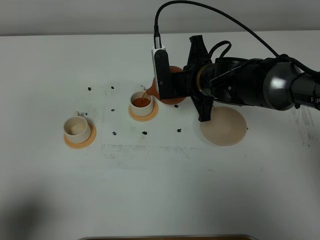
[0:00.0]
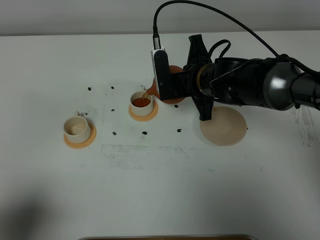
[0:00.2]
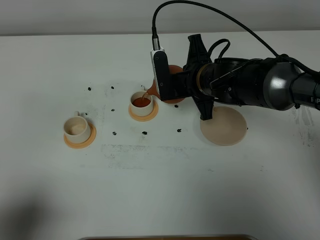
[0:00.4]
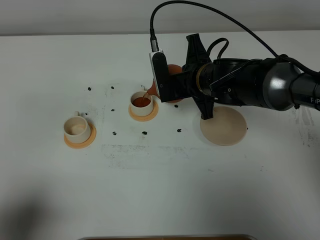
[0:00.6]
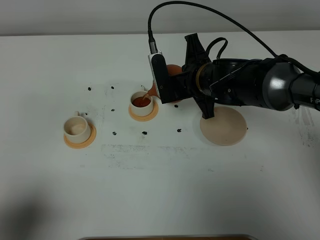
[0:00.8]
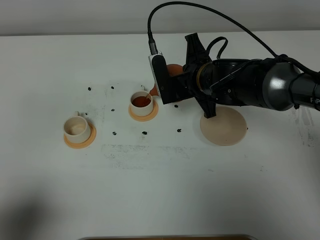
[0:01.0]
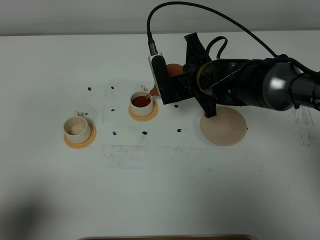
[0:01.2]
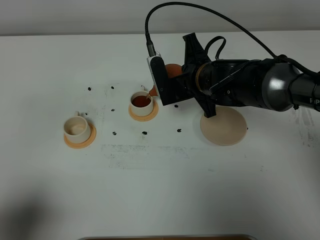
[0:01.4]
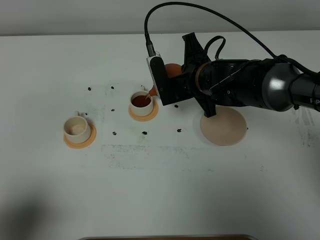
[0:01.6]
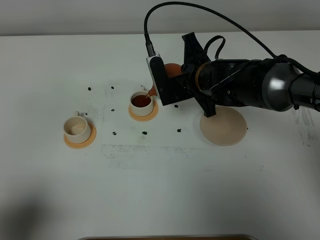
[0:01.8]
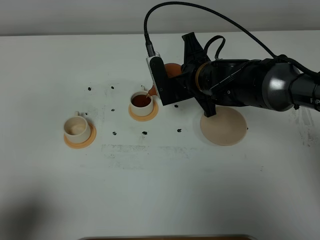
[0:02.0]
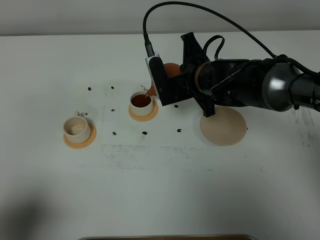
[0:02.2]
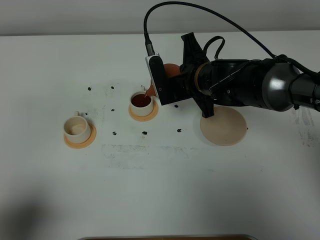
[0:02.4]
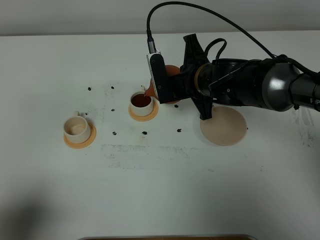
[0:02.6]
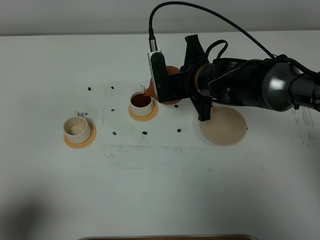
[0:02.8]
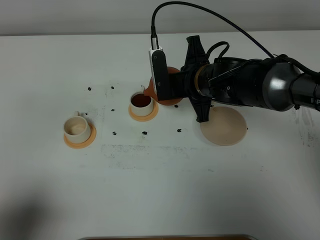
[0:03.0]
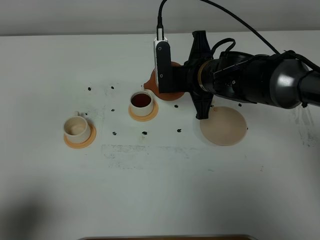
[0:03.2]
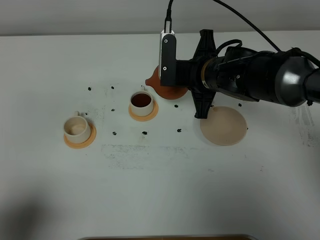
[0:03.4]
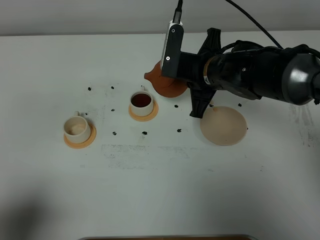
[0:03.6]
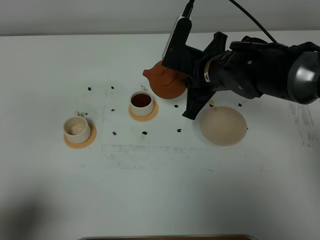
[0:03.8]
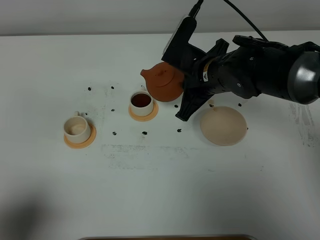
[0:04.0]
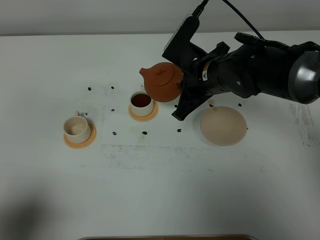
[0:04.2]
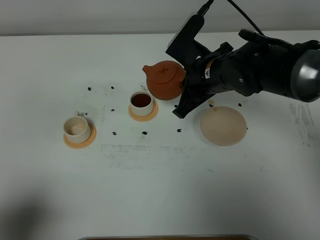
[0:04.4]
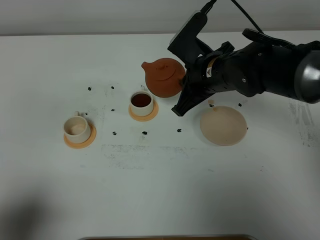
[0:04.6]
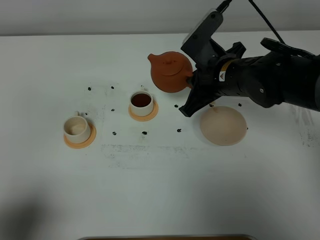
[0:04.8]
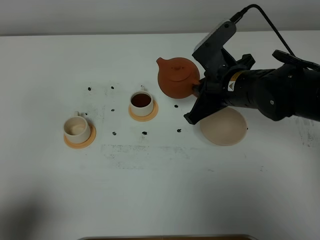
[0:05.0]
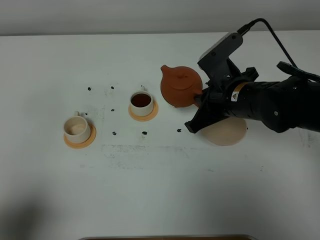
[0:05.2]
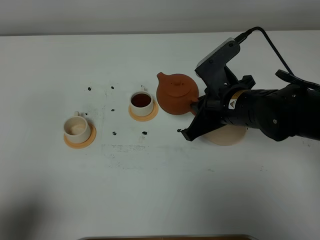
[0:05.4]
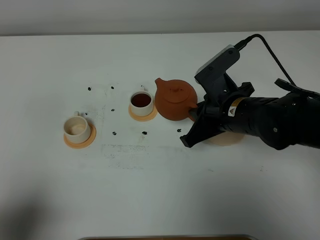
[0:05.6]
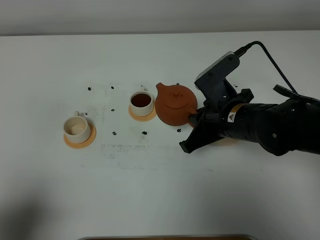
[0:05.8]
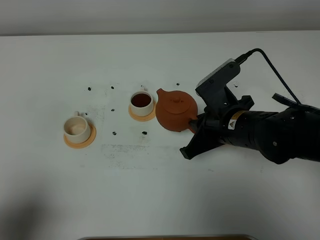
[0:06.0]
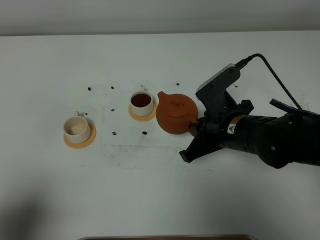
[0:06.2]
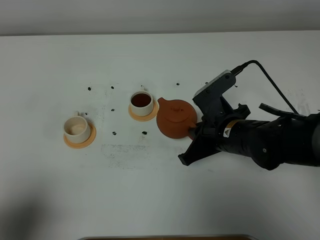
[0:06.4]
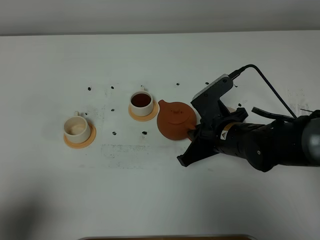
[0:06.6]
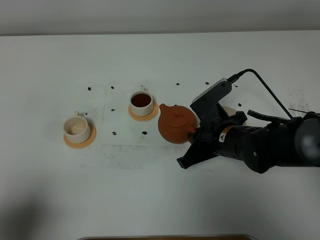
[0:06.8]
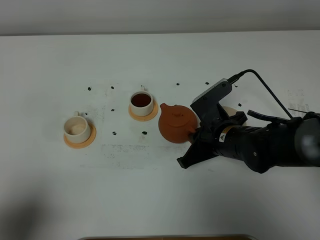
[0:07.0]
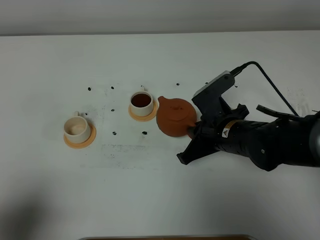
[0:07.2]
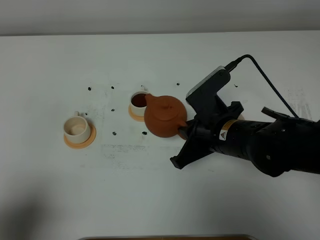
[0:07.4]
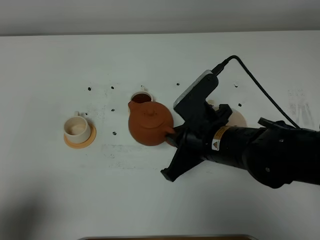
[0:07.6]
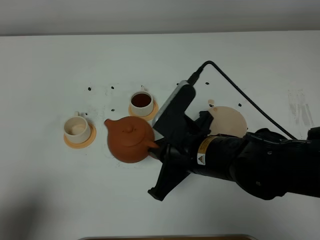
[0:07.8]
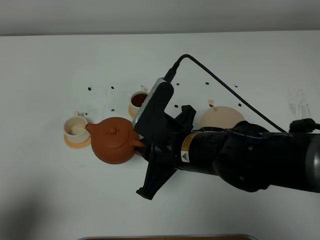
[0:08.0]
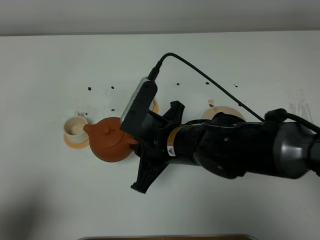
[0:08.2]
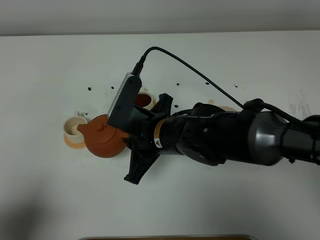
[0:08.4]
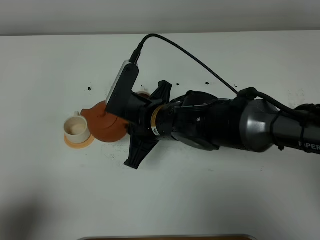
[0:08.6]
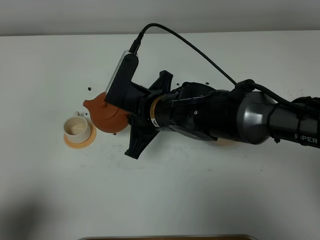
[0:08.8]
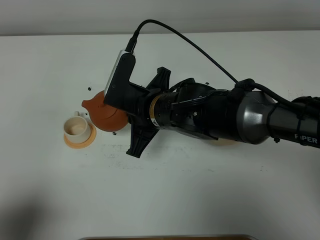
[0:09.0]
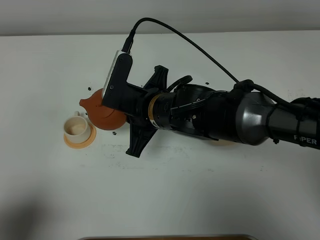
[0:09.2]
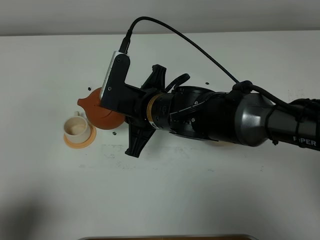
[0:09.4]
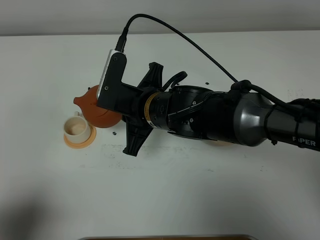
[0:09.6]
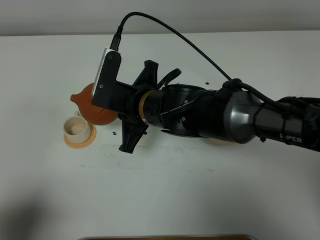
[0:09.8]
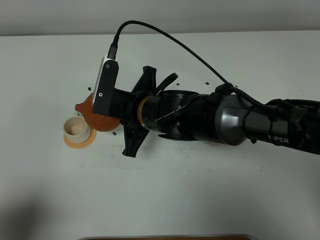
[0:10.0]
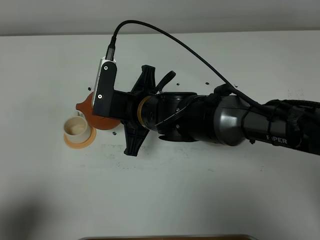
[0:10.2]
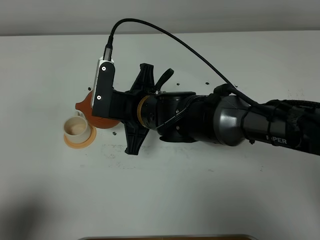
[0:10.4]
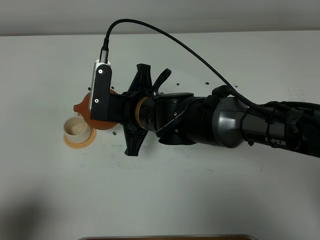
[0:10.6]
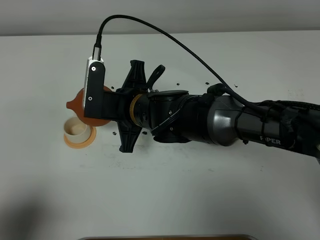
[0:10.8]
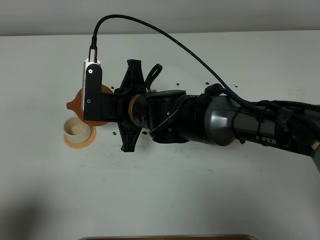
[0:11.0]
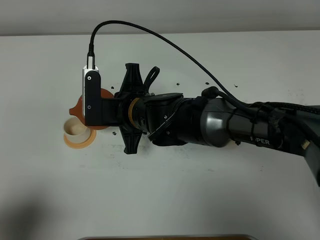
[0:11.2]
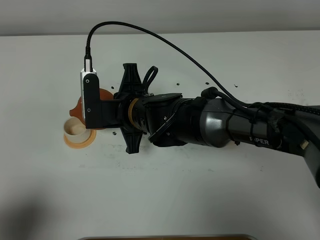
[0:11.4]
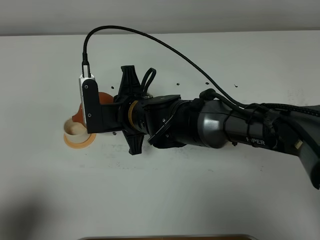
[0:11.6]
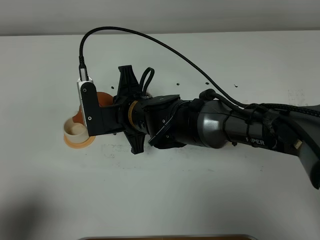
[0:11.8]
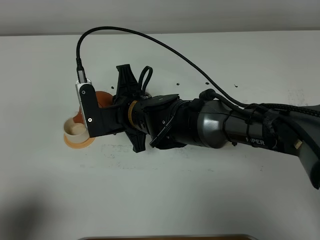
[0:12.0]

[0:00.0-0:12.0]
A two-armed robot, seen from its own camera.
Task of the whole recording: grasp the brown teapot and pour the tea into the two white teacups one by one, put the brown teapot back in its original place.
0:00.0 to 0:03.0: There are only small adjustments of the grippers.
0:04.4 to 0:06.0: The right gripper heads backward, covering approximately 10 cm.
0:06.0 to 0:07.6: The right gripper changes place by roughly 5 cm.
0:07.6 to 0:09.0: The right gripper heads to the left and forward, covering about 10 cm.
0:09.0 to 0:10.4: The grippers stay close to where they were, moving slightly.

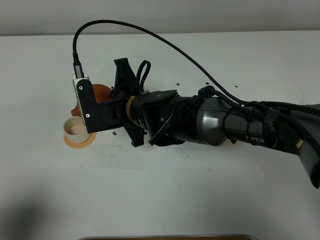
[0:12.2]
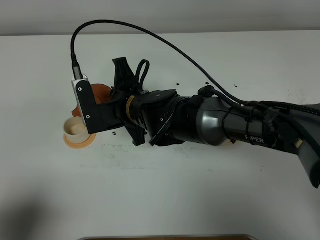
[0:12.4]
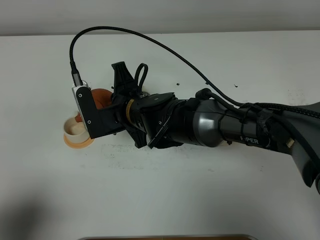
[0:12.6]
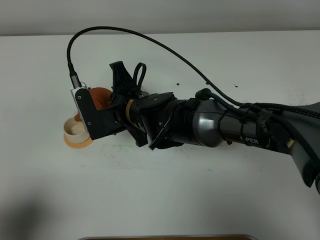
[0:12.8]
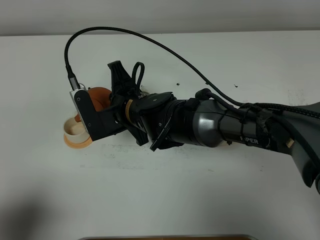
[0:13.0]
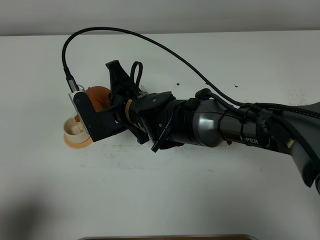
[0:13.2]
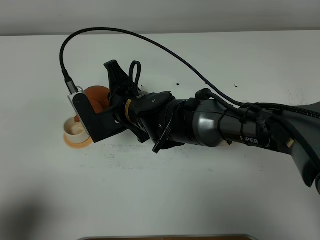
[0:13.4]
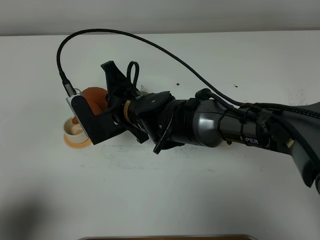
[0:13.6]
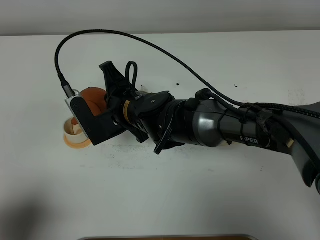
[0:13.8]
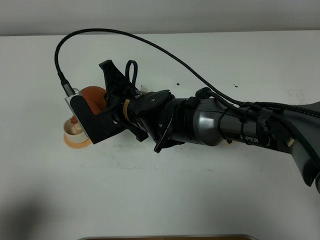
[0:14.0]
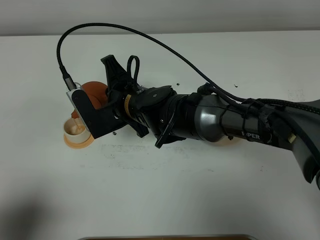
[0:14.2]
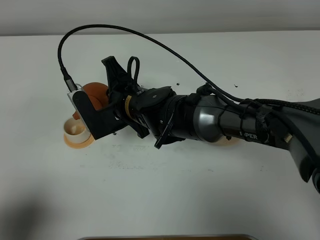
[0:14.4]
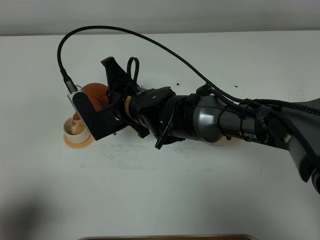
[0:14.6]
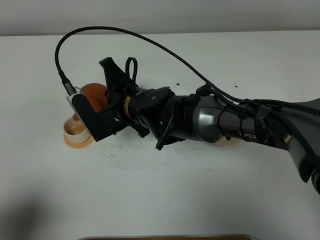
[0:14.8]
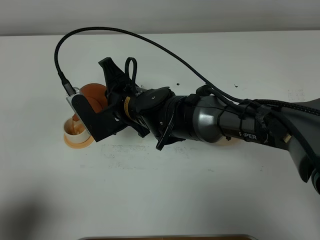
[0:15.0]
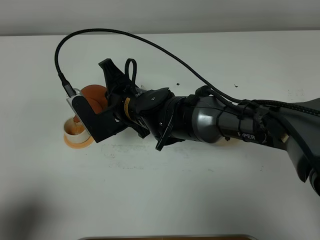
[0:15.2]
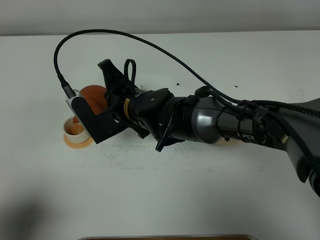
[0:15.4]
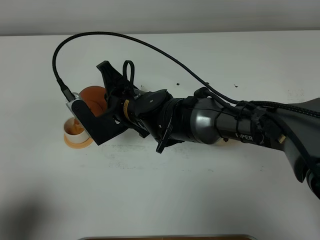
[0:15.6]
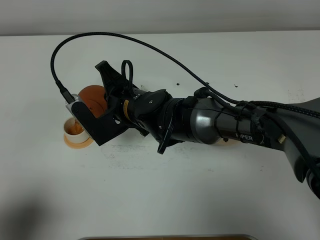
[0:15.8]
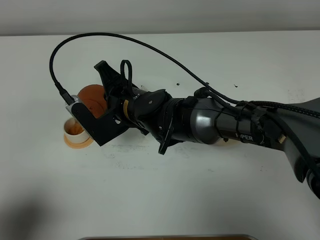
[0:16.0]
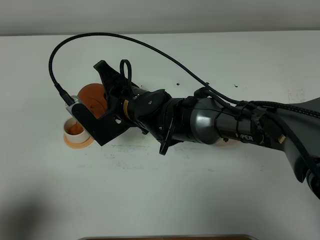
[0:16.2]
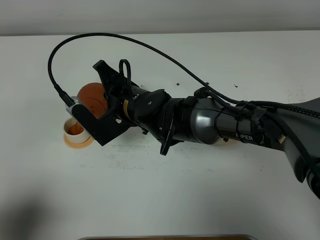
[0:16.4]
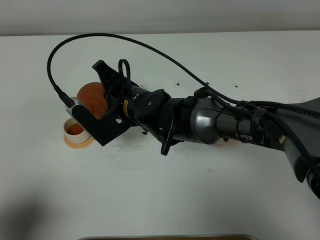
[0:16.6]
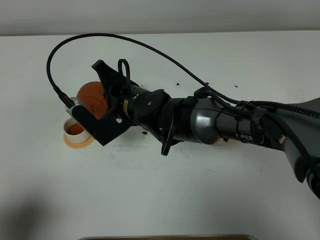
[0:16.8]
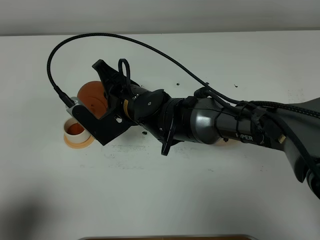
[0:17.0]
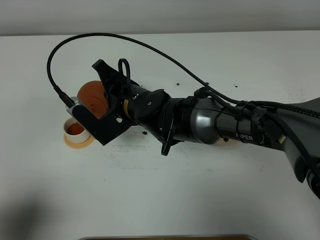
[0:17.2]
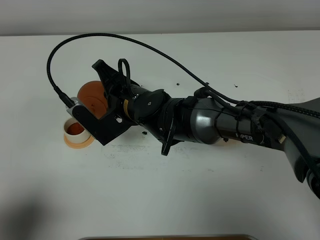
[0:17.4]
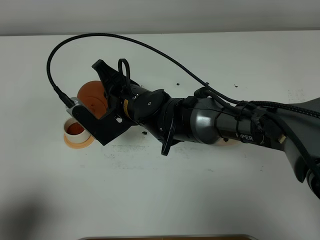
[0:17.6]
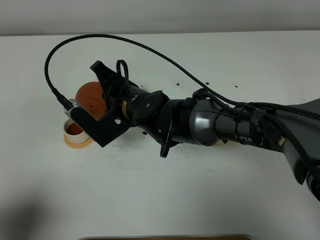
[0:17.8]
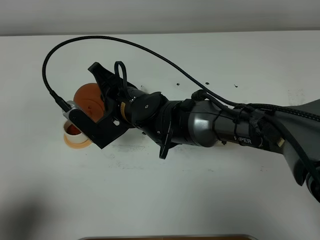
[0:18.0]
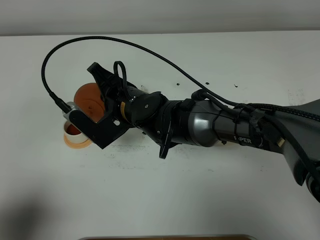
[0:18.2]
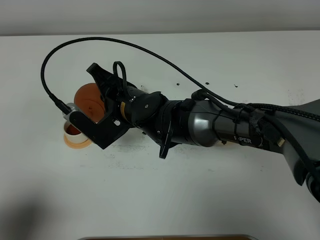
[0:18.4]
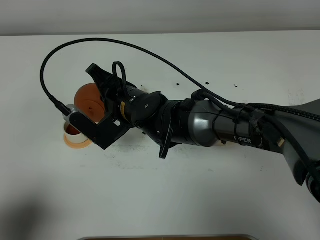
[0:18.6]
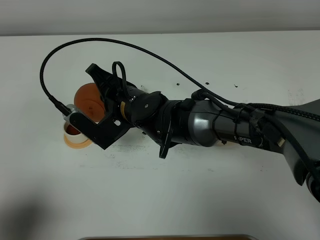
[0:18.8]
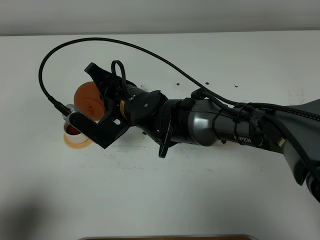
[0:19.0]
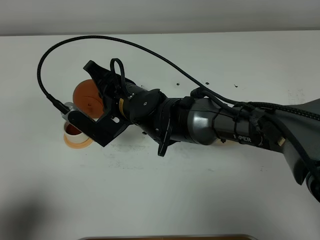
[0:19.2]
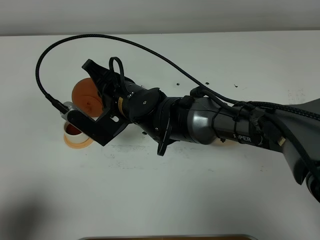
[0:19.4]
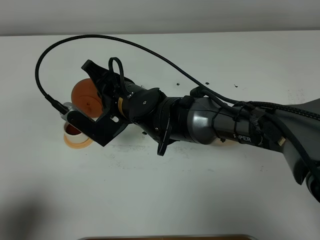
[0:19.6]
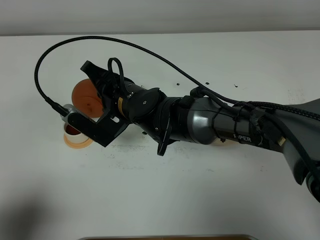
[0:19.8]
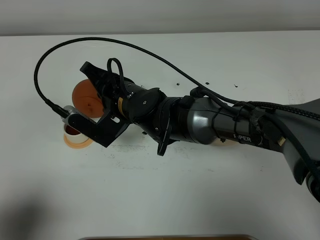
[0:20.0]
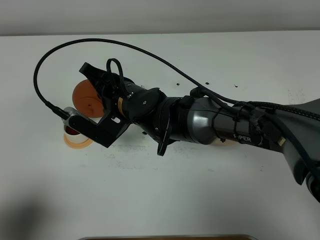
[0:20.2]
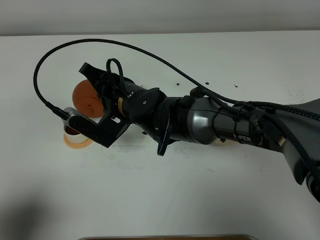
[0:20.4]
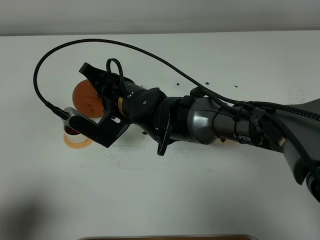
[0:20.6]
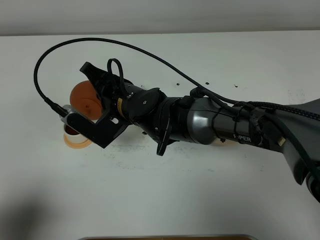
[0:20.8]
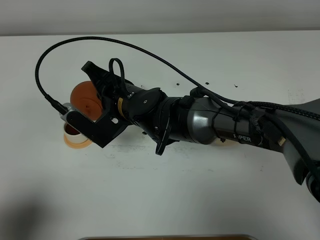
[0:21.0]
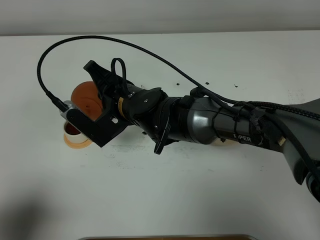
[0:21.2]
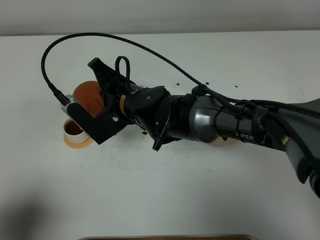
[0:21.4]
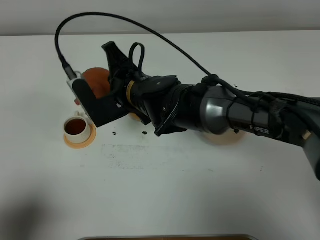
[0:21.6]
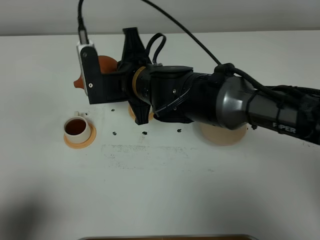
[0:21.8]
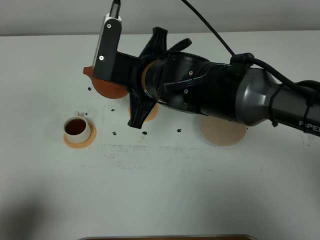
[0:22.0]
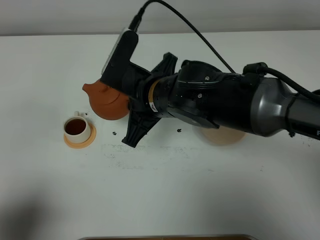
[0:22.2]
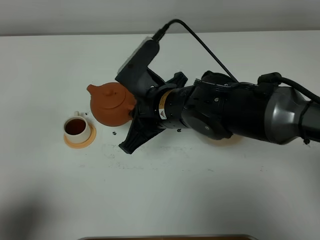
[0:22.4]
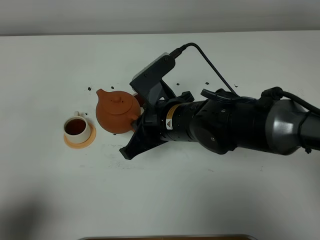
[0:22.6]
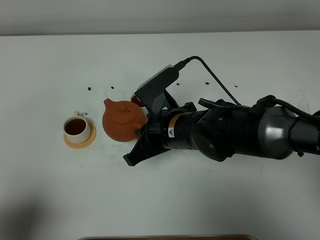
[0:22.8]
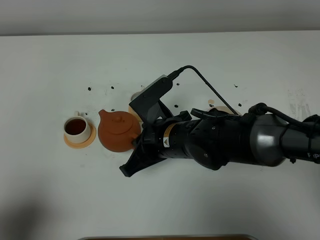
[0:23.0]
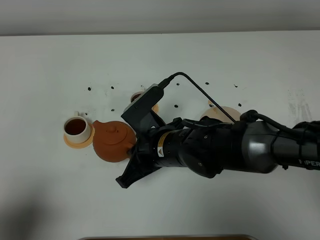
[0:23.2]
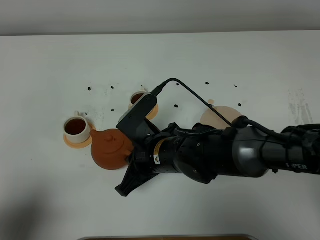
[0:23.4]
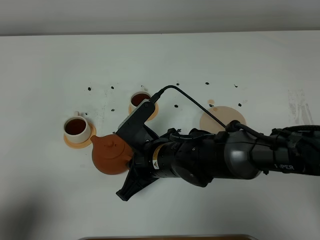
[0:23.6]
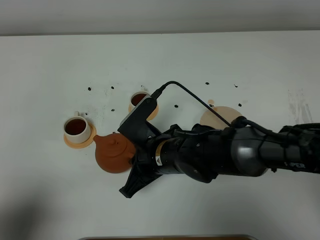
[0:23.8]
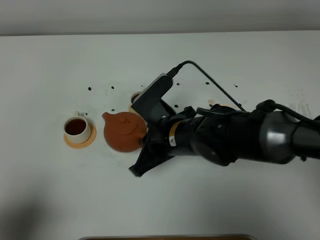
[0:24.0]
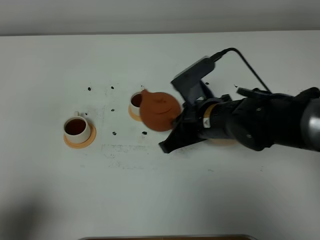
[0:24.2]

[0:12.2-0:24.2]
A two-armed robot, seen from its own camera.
Task of the whole recording: grasp the brown teapot and pour the tea into the two white teacups one by one, put the brown teapot back in its original place.
Step, 0:12.2 to 0:21.6: Pour tea into the teacup with the right gripper.
0:12.2 to 0:13.8: The grippers make only small movements.
0:15.2 to 0:16.6: The grippers stay close to where they were, moving slightly.
0:16.6 to 0:18.2: The two grippers keep their place.
0:18.2 to 0:21.2: The grippers make only small movements.
0:21.2 to 0:22.6: The right gripper moves to the right and backward, about 10 cm.
0:22.6 to 0:24.2: The right gripper goes some 5 cm to the right.
